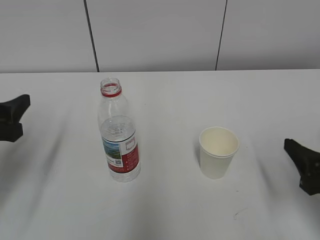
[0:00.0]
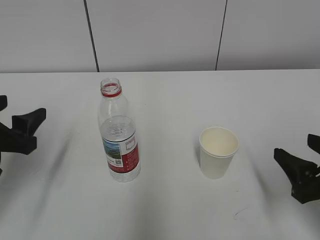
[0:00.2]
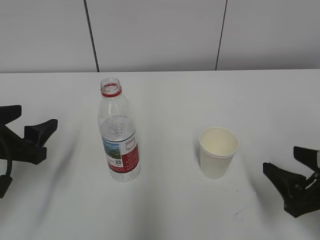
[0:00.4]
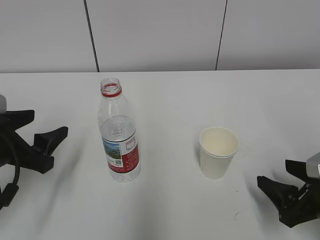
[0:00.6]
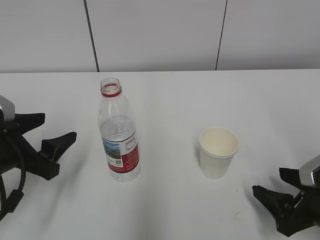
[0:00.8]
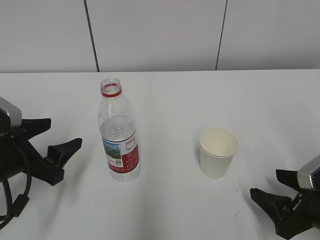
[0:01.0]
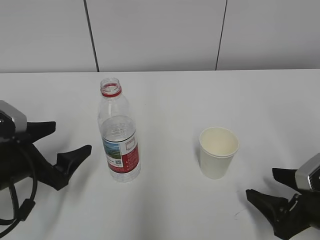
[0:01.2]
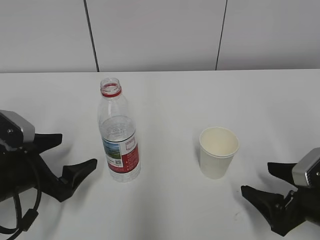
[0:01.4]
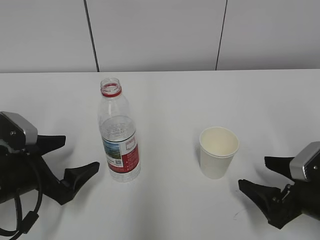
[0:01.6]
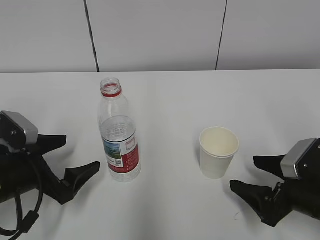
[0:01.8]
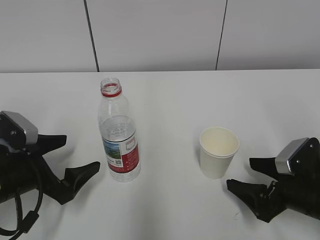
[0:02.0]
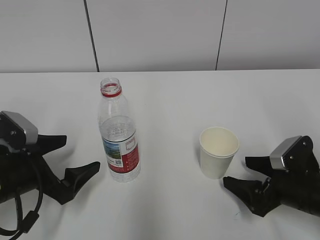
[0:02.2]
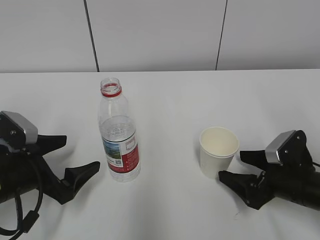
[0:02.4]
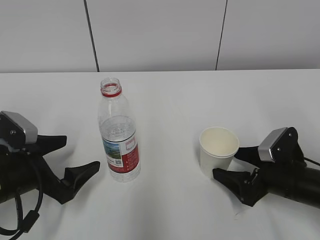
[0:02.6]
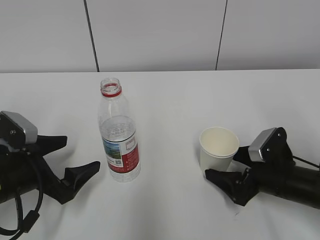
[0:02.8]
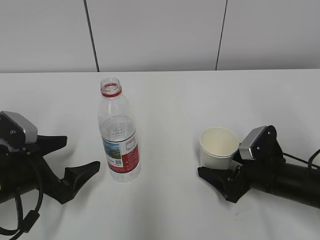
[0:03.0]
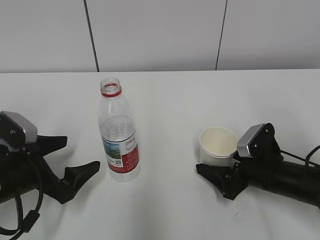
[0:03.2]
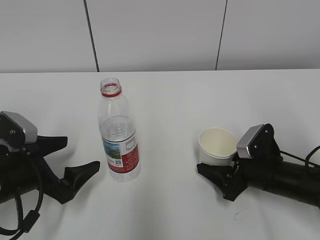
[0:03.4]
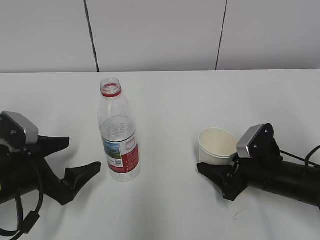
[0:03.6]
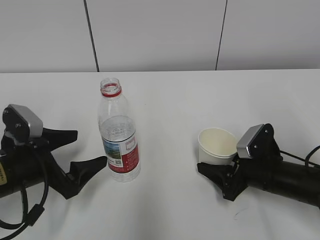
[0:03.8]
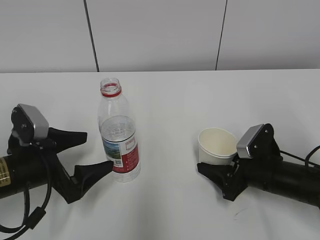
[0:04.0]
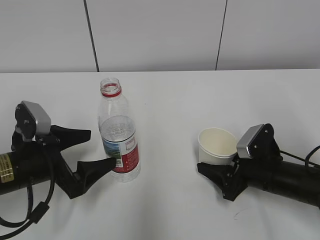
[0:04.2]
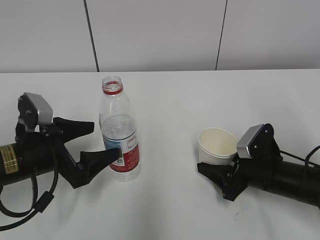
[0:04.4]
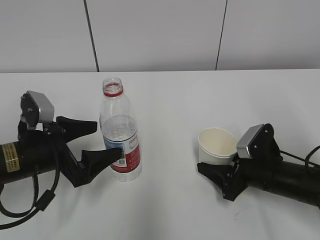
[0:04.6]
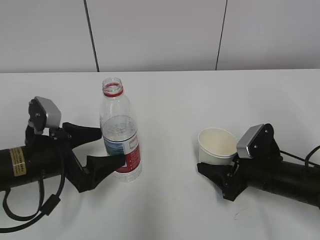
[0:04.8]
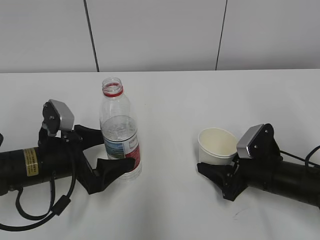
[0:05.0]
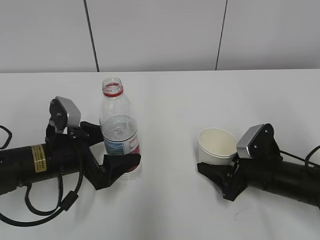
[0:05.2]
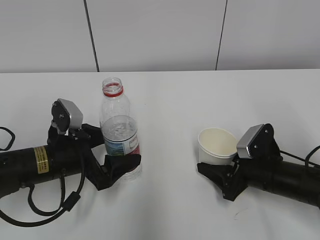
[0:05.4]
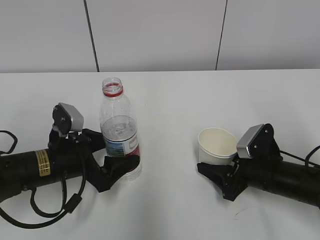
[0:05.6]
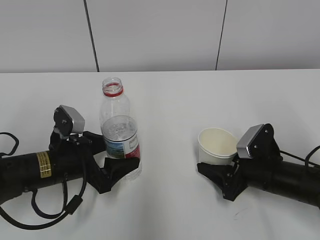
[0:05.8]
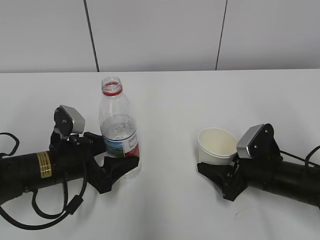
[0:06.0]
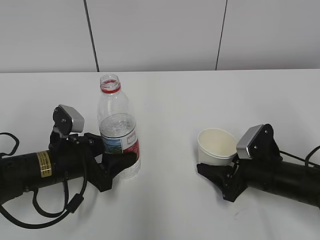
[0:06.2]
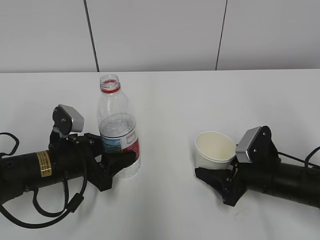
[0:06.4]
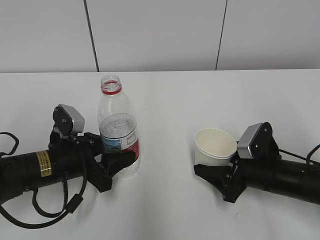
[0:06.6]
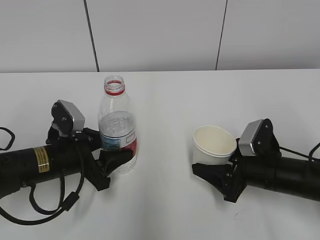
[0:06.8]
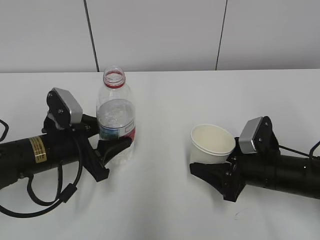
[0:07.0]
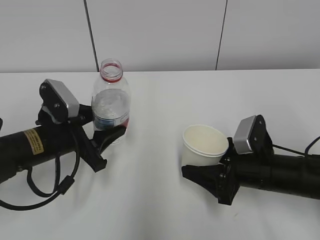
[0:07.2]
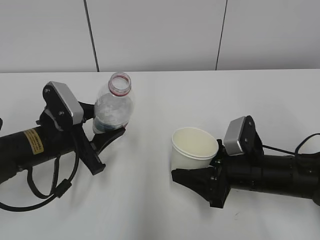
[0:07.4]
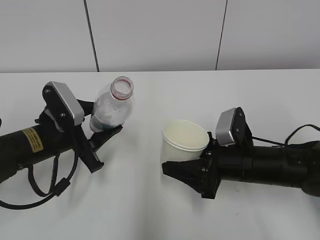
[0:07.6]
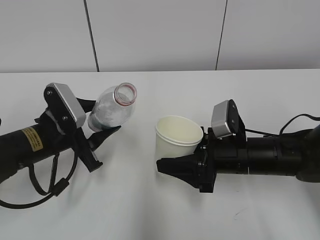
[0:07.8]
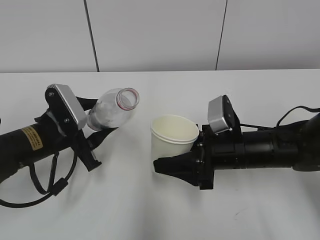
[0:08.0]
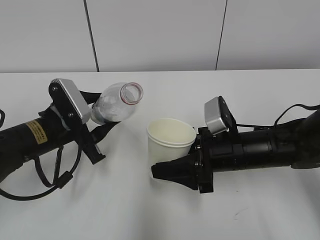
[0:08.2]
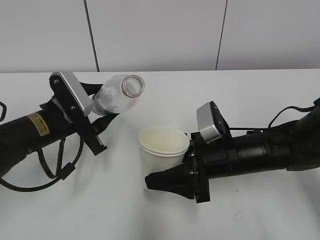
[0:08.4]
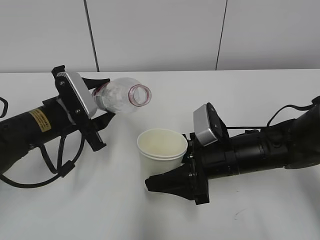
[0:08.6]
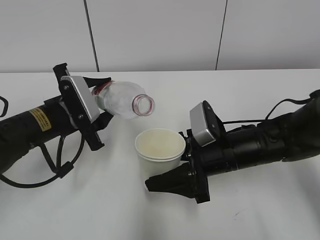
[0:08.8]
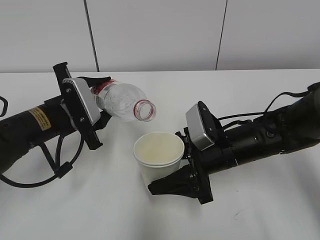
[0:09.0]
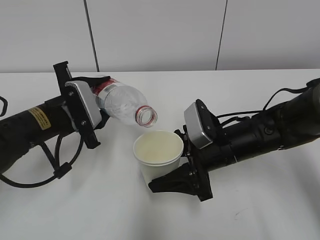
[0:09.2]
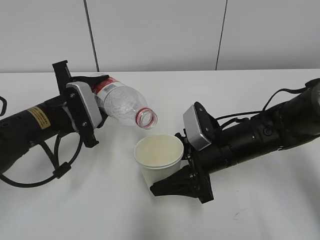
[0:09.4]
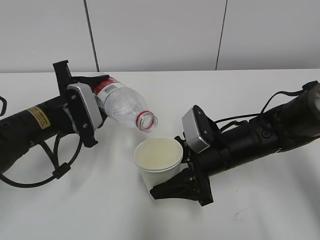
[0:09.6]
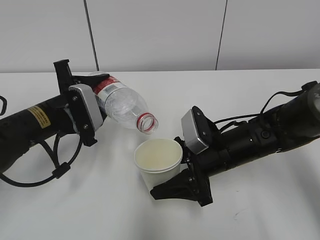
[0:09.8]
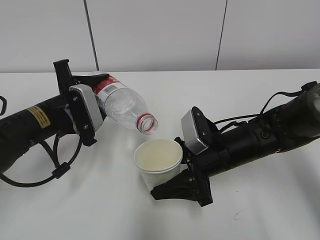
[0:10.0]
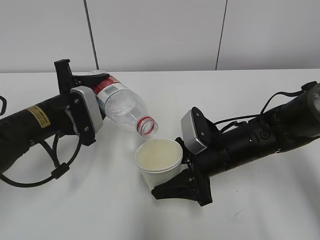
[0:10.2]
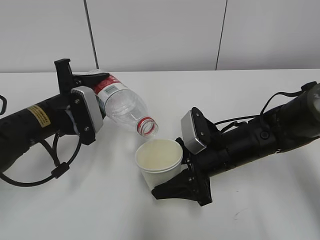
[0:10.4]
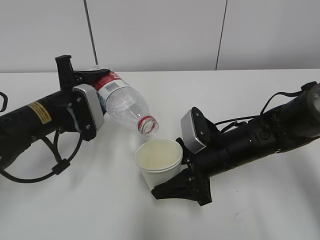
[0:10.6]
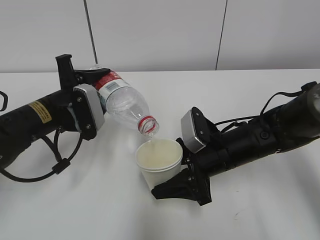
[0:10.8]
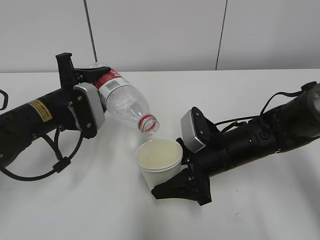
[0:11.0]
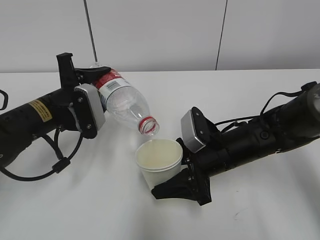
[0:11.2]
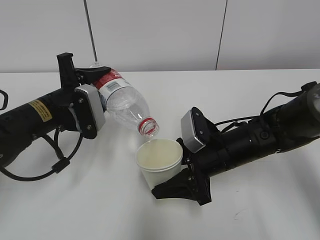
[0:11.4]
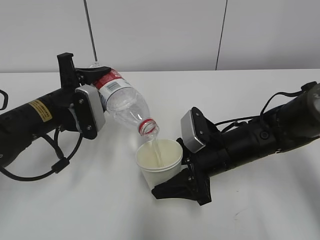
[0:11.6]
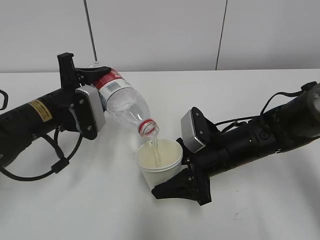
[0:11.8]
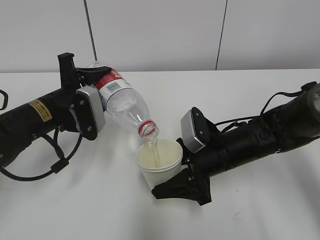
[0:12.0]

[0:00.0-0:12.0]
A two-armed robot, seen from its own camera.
Step, 0:00.0 to 0:04.6: Grab the paper cup with the right hand.
Step, 0:05.0 to 0:08.0: Lift the paper cup with the right hand.
0:00.0 to 0:01.6: The left gripper goes about 10 cm downward, and opens; the right gripper heads downward, covering some 5 cm, and opens.
0:01.6 to 0:03.0: The right gripper is displaced forward by approximately 10 cm.
0:03.0 to 0:04.4: The right gripper closes.
0:04.4 to 0:06.0: The left gripper moves some 5 cm, and closes up.
0:06.0 to 0:07.6: The right gripper goes some 5 cm to the left, while the left gripper closes its fingers.
0:09.0 to 0:10.4: There are only small adjustments of the grippers.
0:10.4 to 0:12.0: The grippers stay close to where they were, moving slightly.

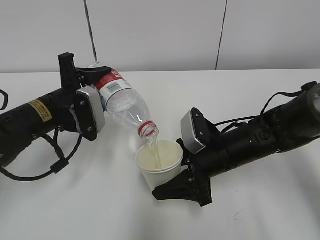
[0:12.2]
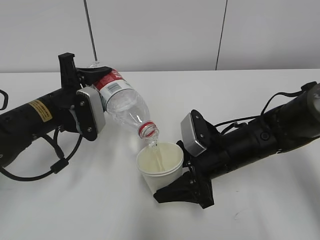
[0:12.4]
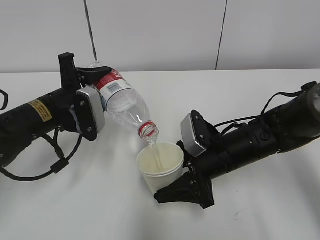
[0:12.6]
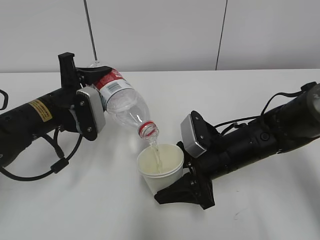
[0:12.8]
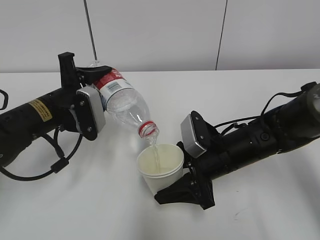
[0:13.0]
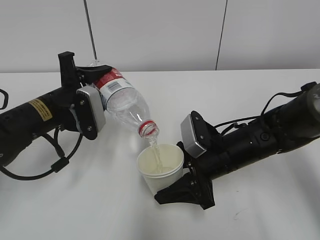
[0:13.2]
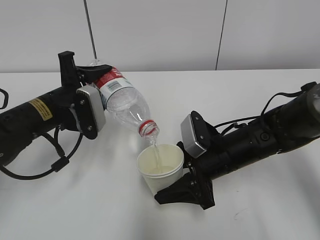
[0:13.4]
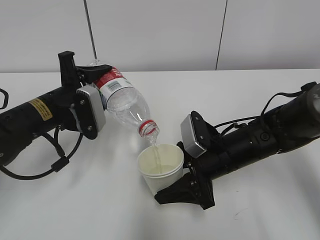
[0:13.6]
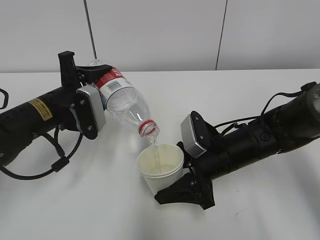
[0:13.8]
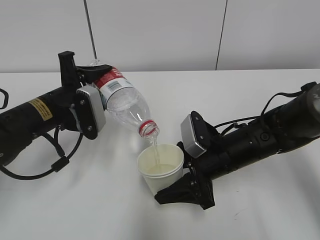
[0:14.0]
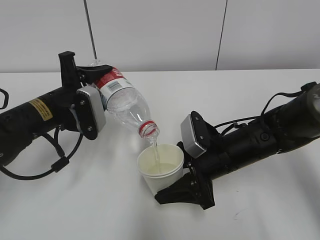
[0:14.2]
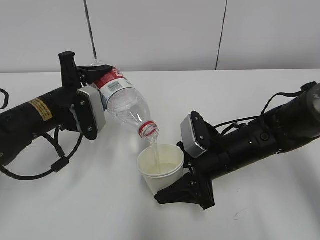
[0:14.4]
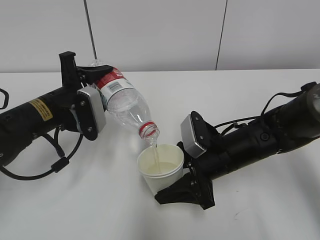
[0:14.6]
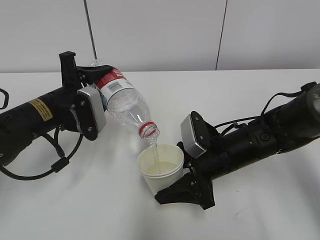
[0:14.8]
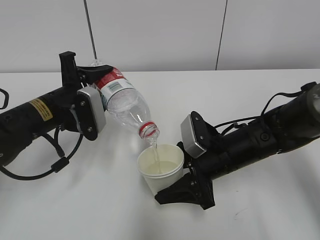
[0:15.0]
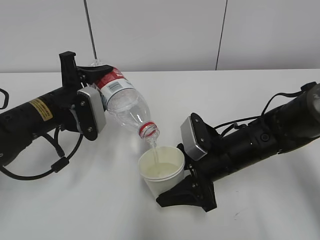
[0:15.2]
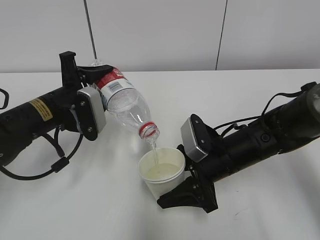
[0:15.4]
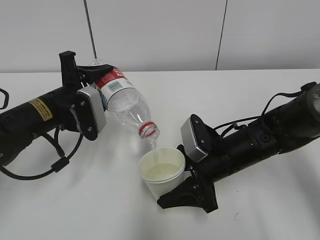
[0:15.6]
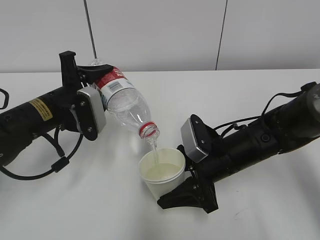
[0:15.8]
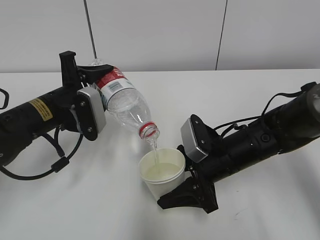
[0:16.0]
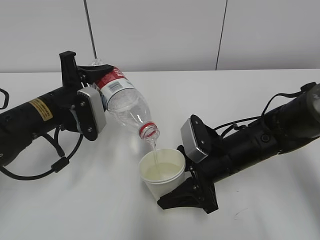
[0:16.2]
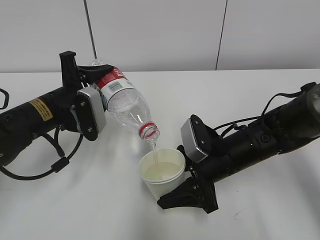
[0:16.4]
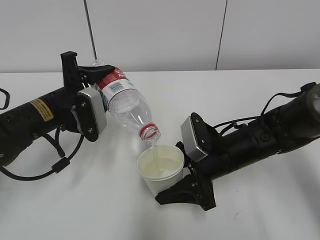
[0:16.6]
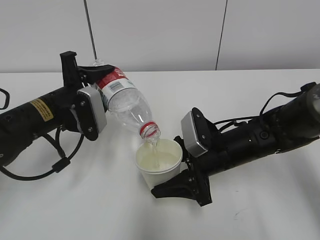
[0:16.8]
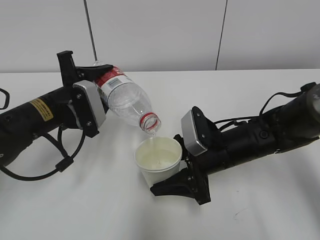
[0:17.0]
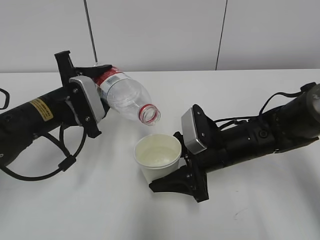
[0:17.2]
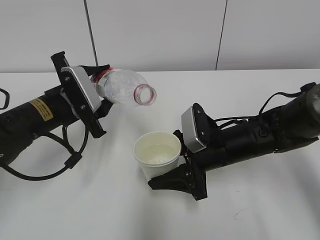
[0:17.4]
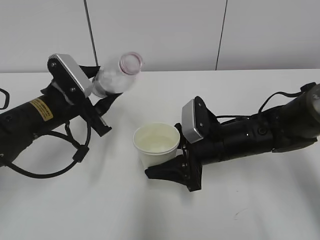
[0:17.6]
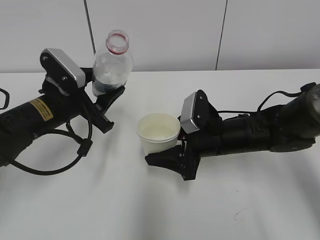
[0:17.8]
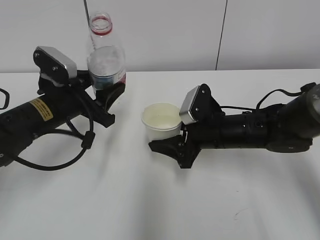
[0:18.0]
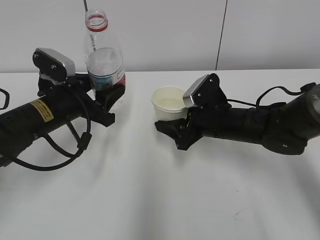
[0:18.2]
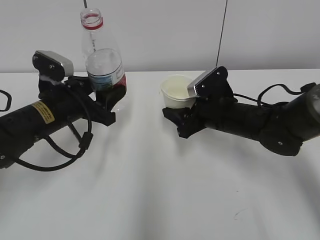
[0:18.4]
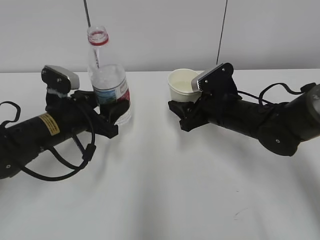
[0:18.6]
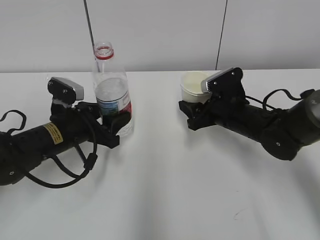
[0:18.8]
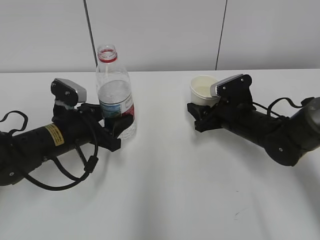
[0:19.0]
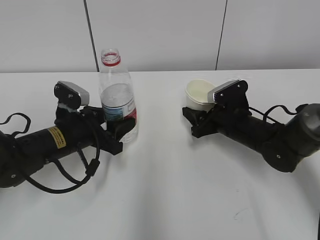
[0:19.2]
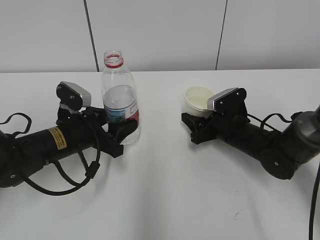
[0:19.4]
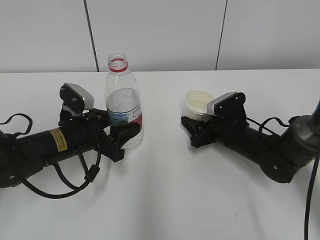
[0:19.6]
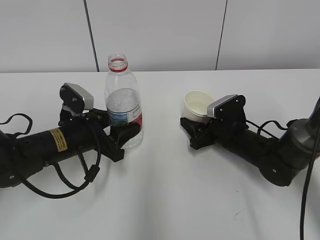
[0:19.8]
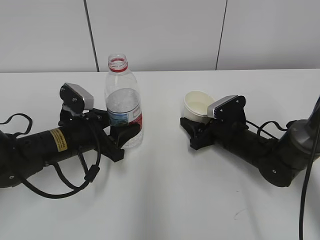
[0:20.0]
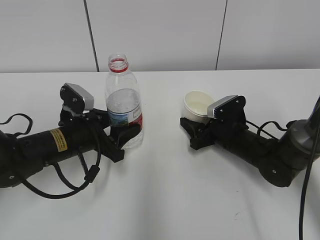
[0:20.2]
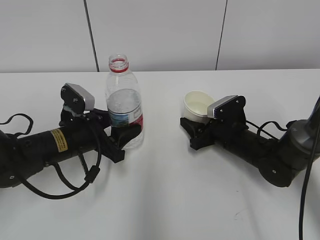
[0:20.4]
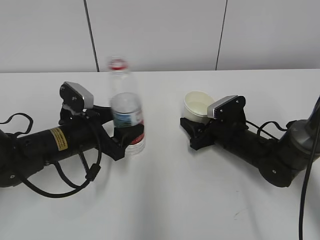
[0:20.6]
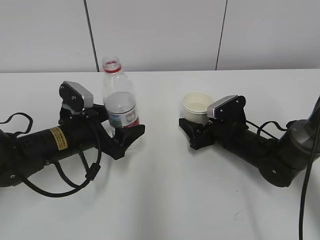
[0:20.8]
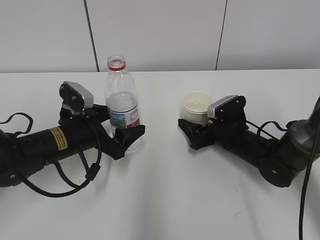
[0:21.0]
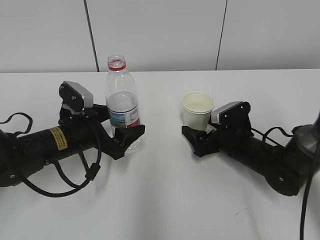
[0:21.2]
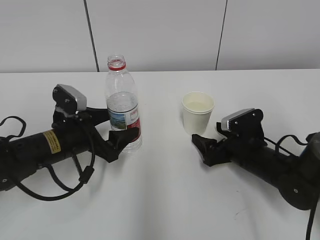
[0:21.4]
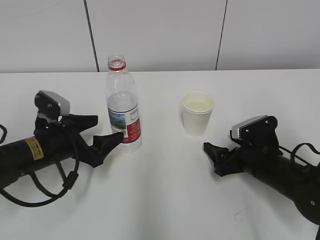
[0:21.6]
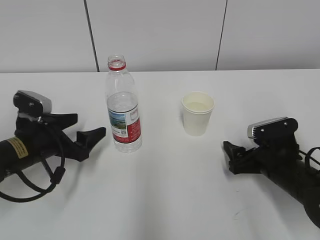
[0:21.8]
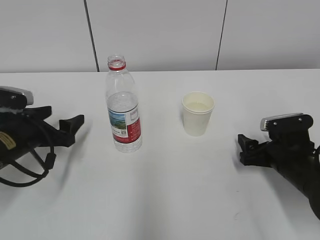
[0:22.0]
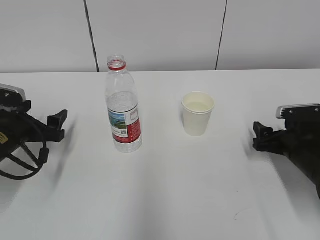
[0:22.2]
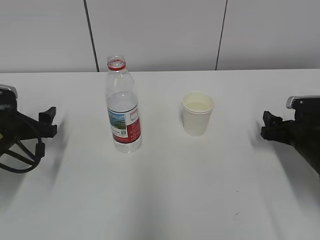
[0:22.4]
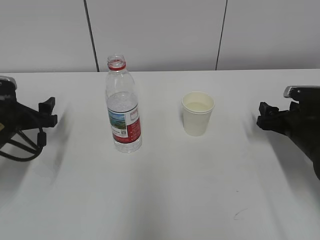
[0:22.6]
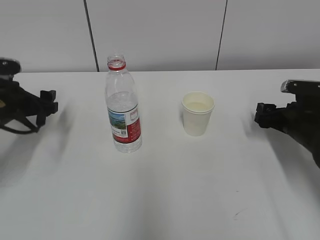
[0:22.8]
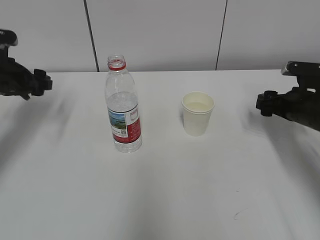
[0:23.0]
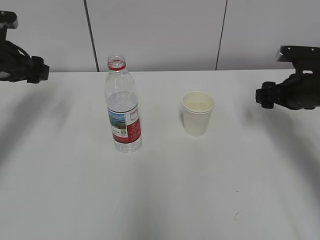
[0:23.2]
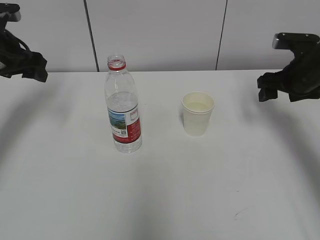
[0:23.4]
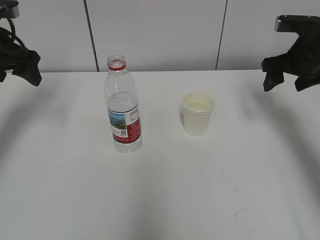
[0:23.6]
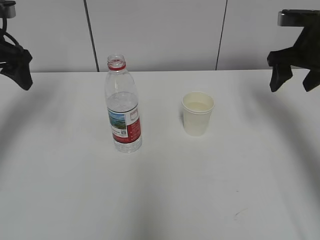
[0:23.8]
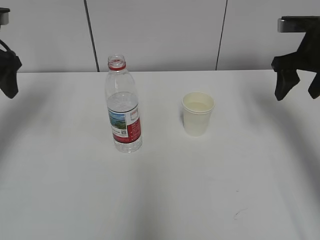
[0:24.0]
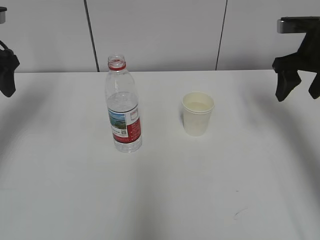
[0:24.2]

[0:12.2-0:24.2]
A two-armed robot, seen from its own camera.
Step, 0:14.8 to 0:16.6: Place the paper cup with the right hand.
0:12.2 to 0:16.6: Both grippers stay about where they are.
0:16.6 to 0:18.2: The right gripper moves some 5 cm.
0:18.2 to 0:19.8: Both grippers move downward, approximately 5 cm.
0:19.8 to 0:21.2: The right gripper opens, while the left gripper opens.
0:21.2 to 0:22.6: The right gripper is displaced to the right by approximately 10 cm. Meanwhile the left gripper is displaced to the left by roughly 10 cm.
0:22.6 to 0:24.2: Both grippers travel together upward, some 20 cm.
